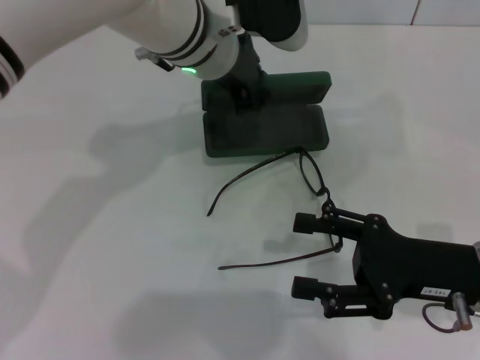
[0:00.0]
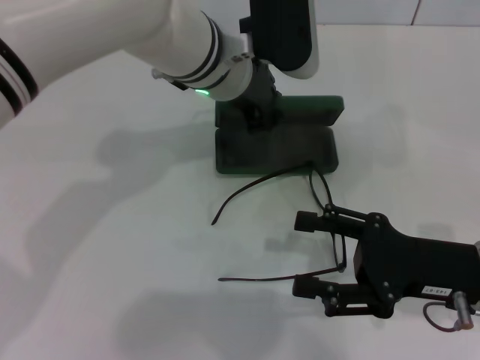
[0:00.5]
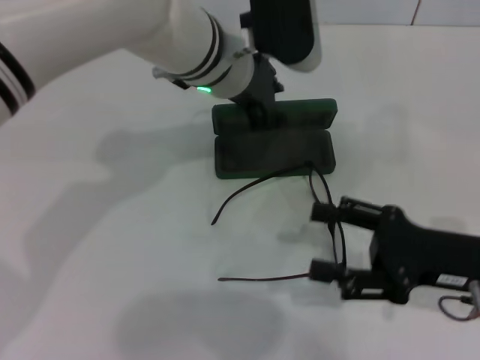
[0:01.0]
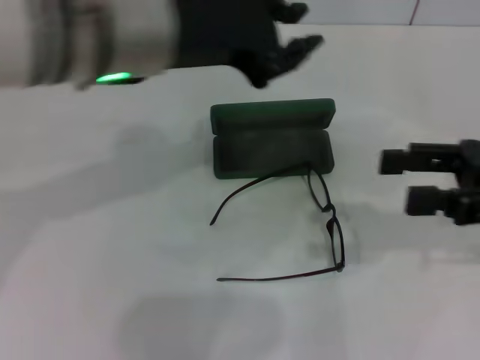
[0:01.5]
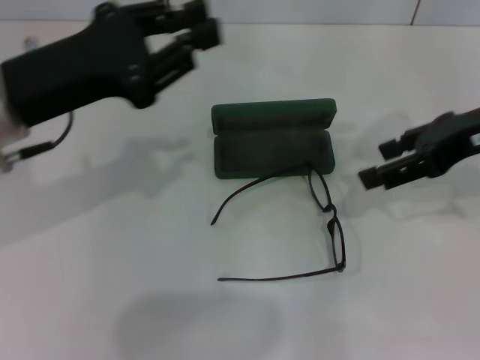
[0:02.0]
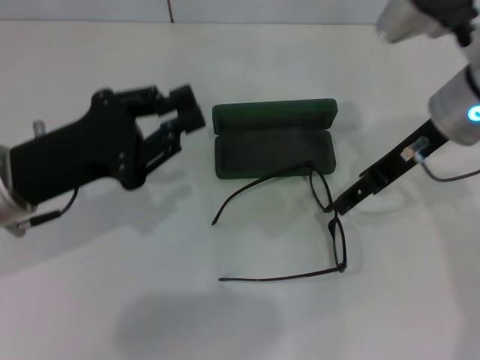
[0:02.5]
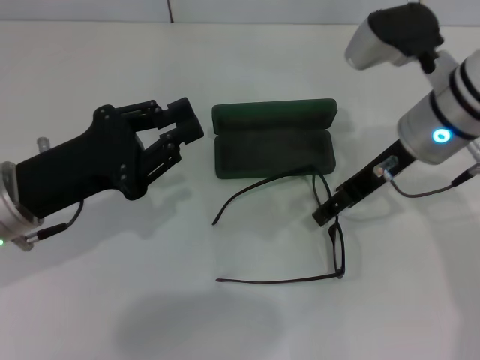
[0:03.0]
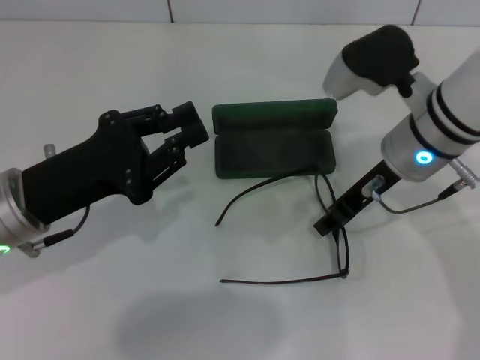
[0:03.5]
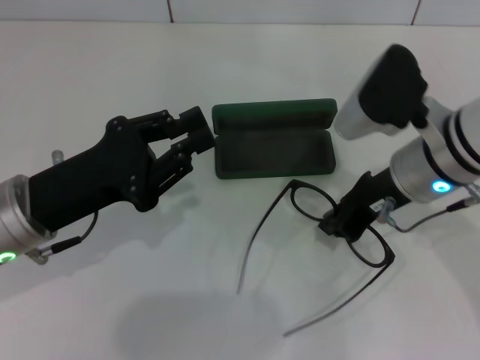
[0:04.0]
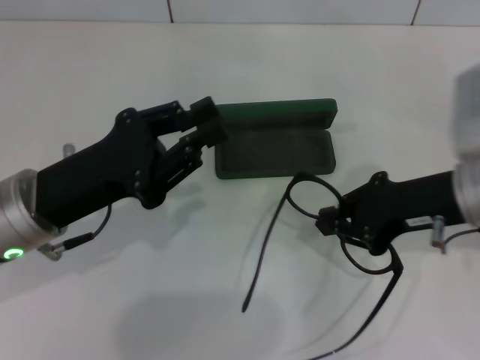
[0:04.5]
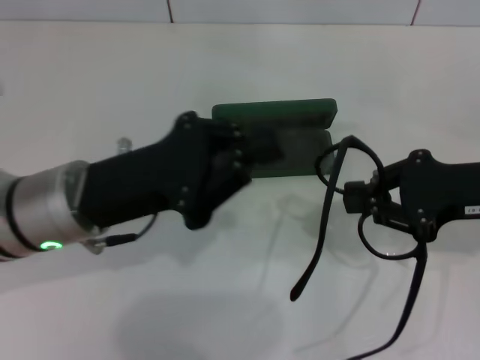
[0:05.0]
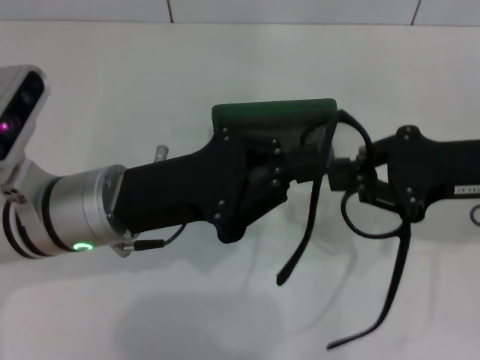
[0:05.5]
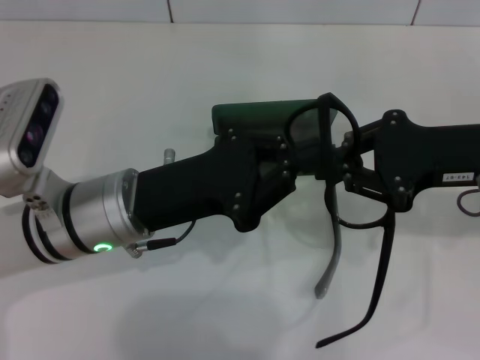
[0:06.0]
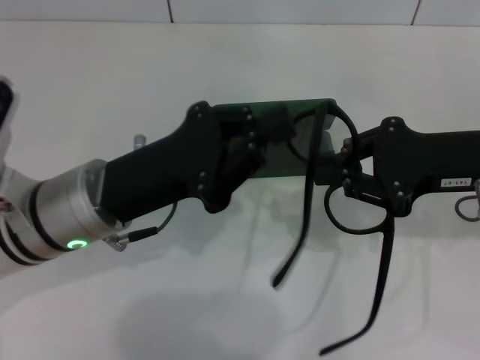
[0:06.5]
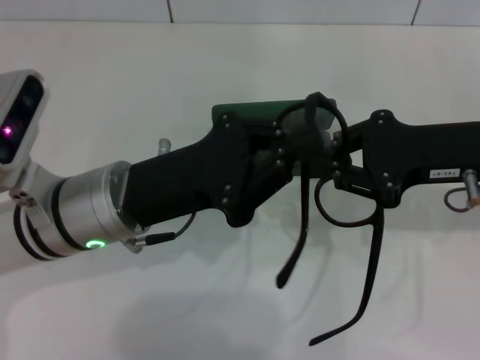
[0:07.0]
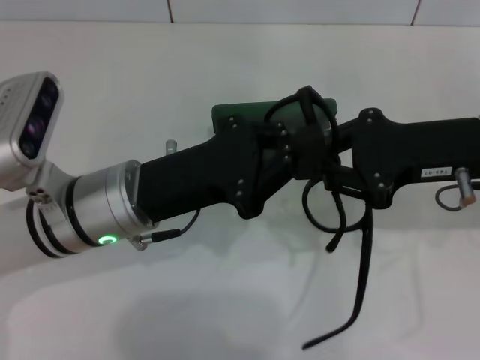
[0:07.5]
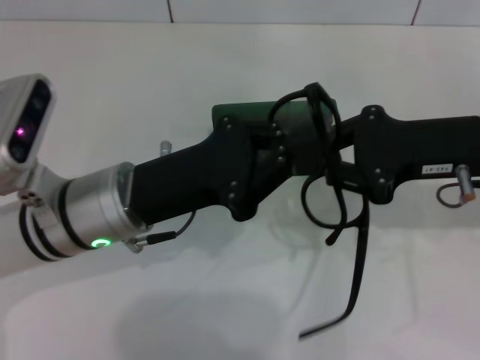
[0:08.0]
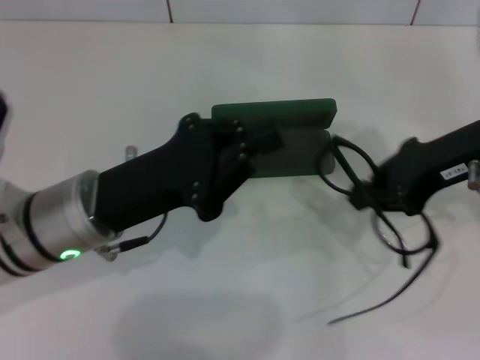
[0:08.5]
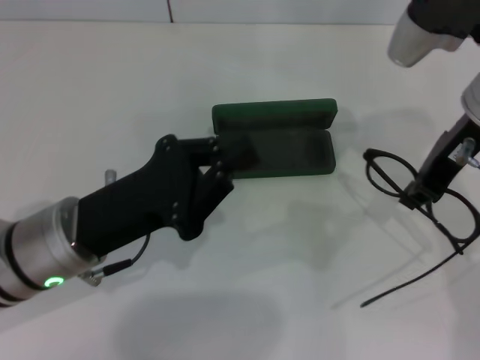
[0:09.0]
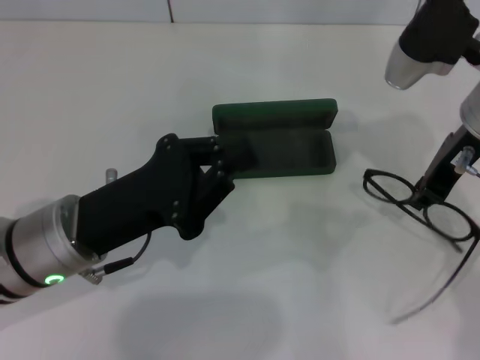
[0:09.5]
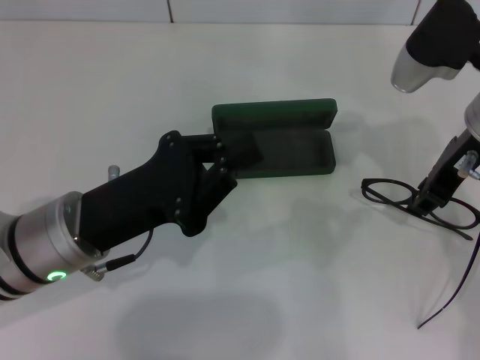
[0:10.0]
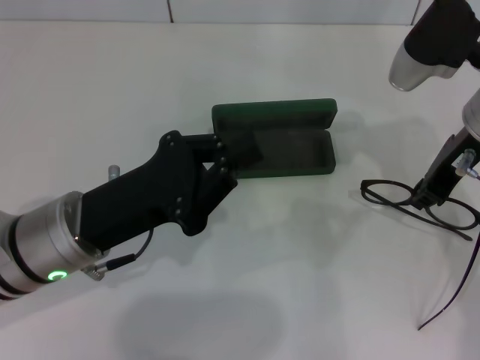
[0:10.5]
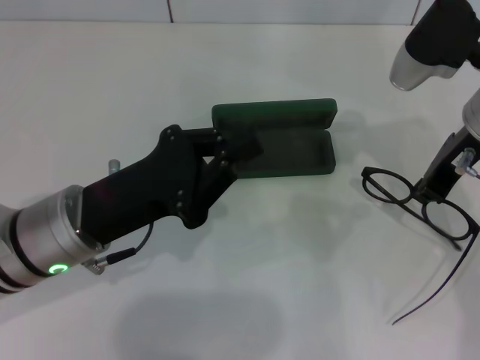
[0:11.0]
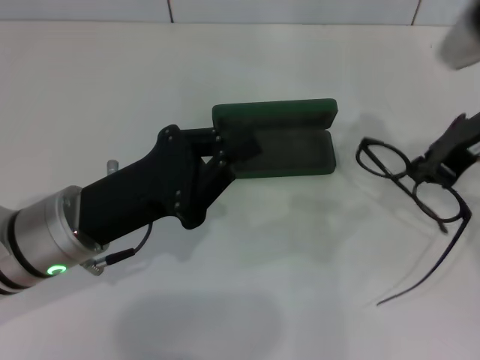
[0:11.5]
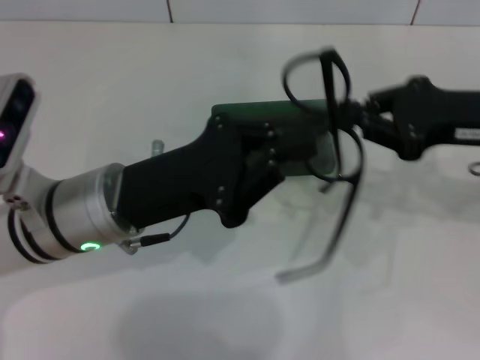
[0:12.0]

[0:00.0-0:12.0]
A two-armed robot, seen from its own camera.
Step, 0:00.0 to 0:01.0: Place the glasses case in the center of the table with your left hand.
Step, 0:01.5 to 0:03.5: Grab the eyeglass frame with your right hand.
0:00.0 to 0:02.0: The left gripper shifts about 20 cm to the left and backward. The right gripper is displaced upward and forward by approximately 15 cm.
0:02.0 to 0:04.0: The left gripper shifts approximately 10 cm downward; the right gripper travels to the left and downward by some 10 cm, and closes its fingers.
0:04.0 to 0:06.0: Both grippers travel together to the right, about 10 cm.
0:06.0 to 0:08.0: The grippers stay close to where they were, moving slightly.
0:08.0 to 0:10.0: The right gripper shifts roughly 5 cm forward.
0:10.0 to 0:12.0: The right gripper is displaced to the right by some 5 cm, and closes.

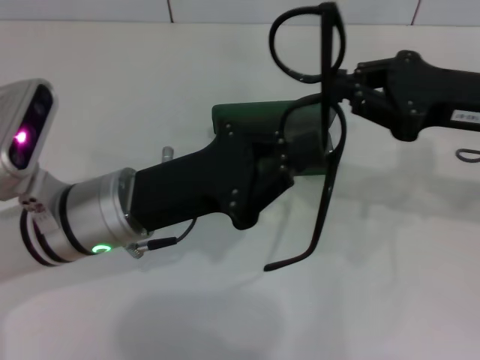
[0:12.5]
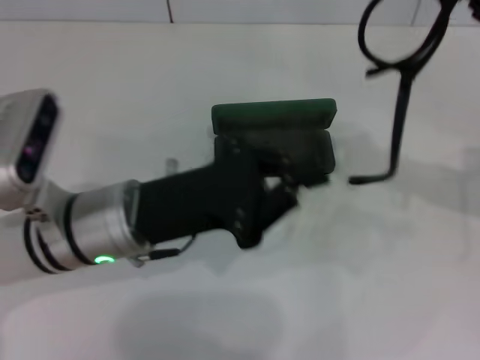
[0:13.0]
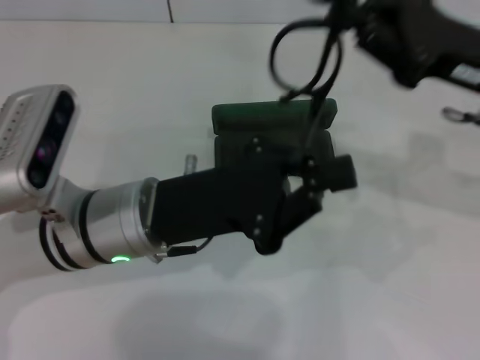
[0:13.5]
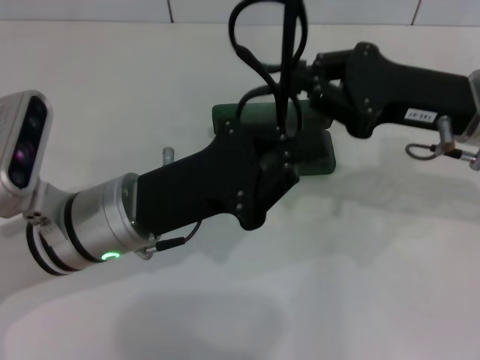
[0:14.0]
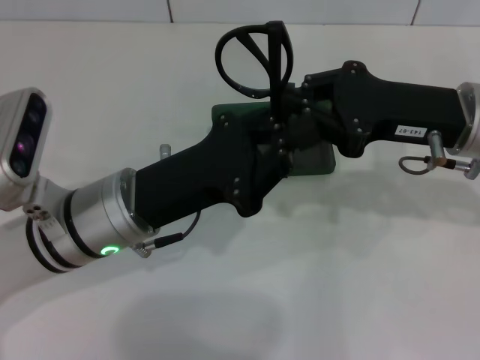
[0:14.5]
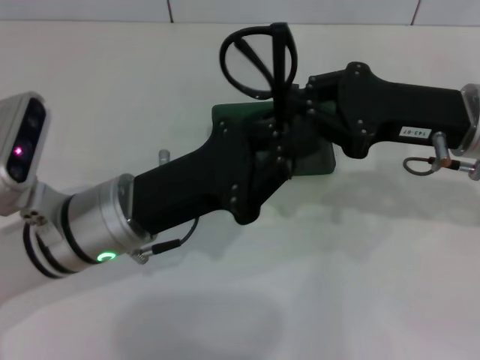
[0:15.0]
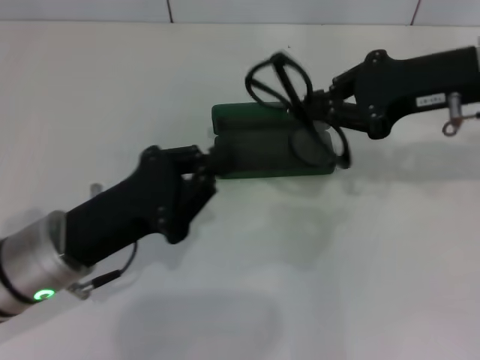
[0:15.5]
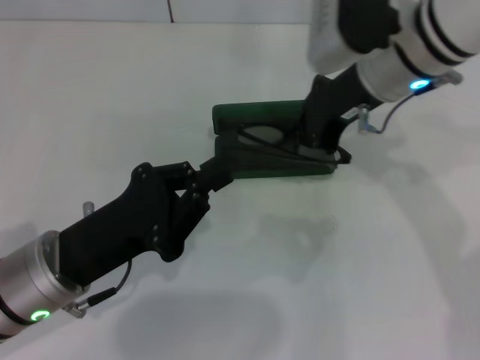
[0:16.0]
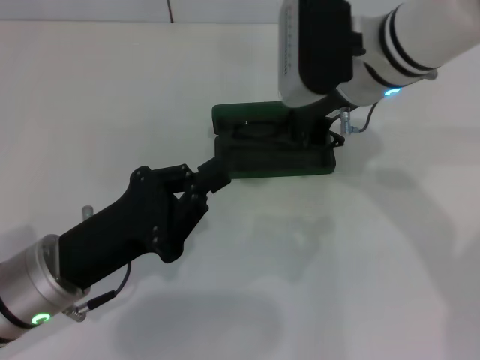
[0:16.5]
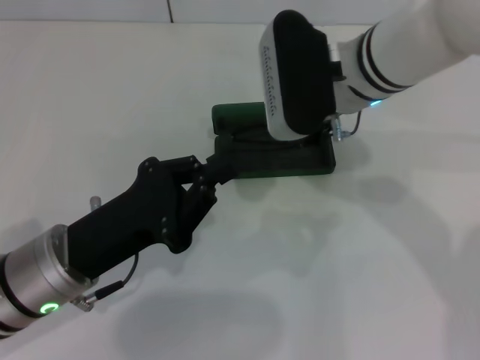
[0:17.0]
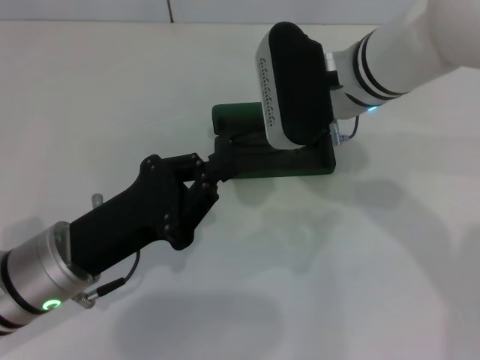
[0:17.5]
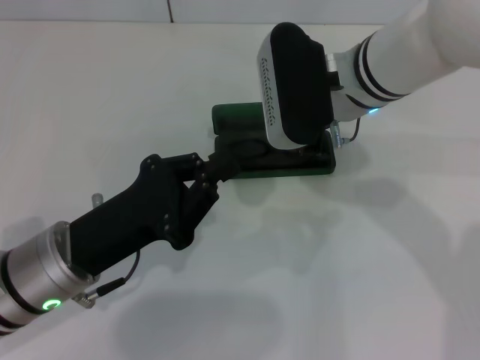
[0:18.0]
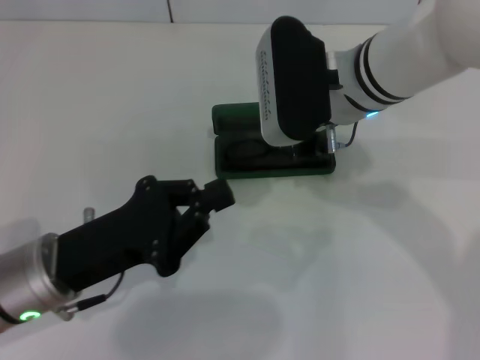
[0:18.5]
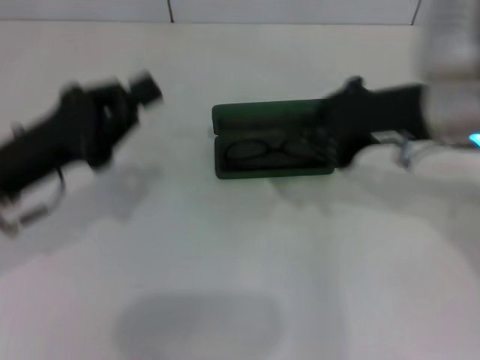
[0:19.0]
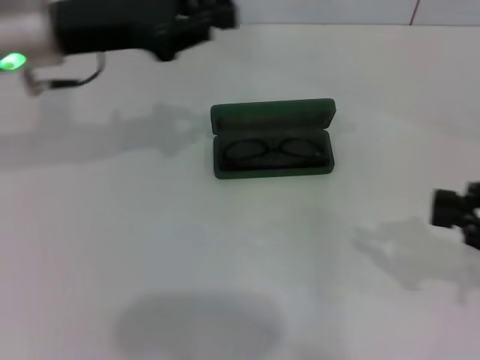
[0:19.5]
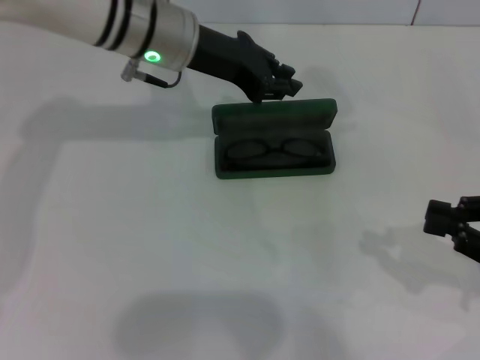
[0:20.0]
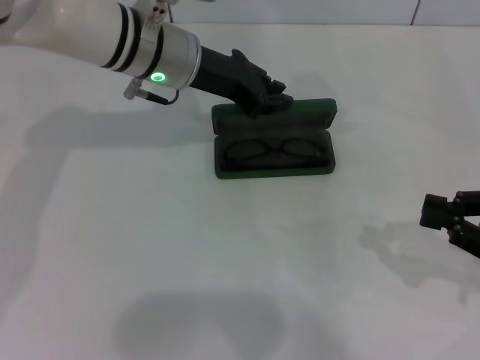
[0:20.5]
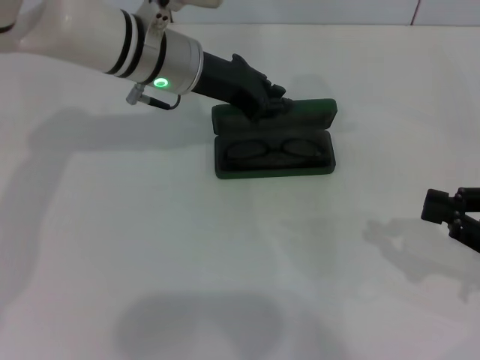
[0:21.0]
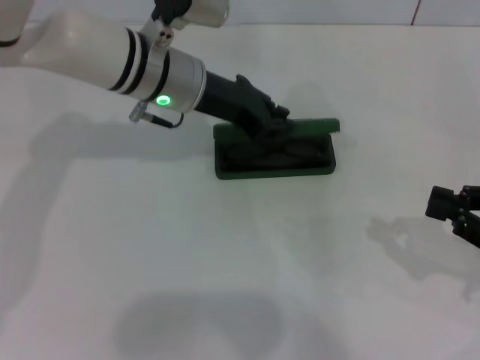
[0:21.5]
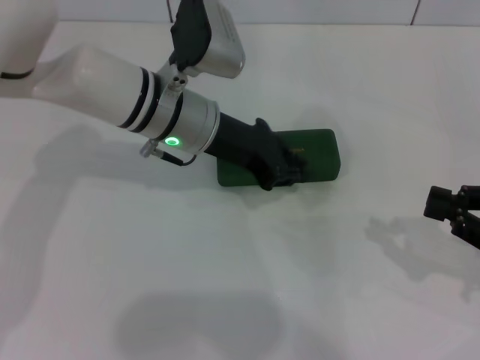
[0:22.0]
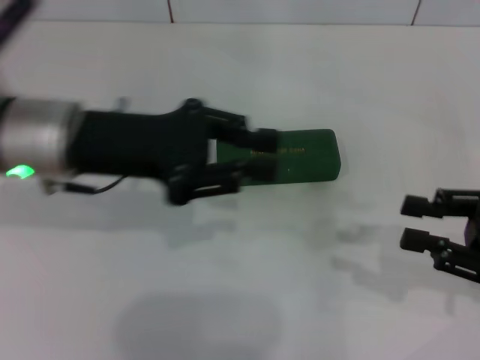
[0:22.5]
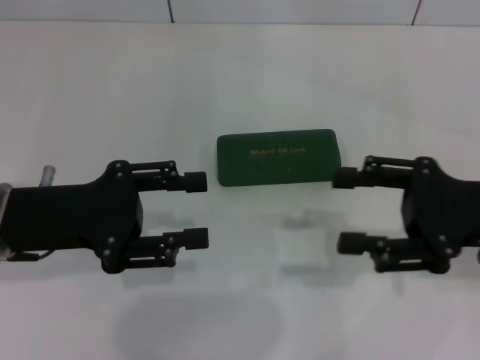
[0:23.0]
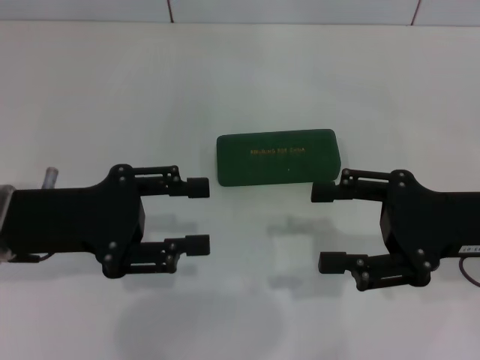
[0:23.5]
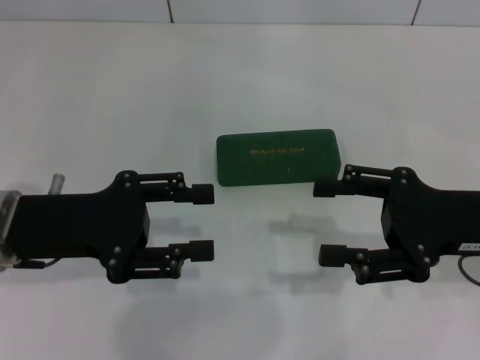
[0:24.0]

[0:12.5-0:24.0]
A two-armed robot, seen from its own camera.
Step, 0:12.5 to 0:14.5: Fold the frame with your left hand.
Step, 0:15.0 to 0:18.0: Put the glasses into the case with your right hand.
Step, 0:18.5 to 0:21.5: Close the glasses case with your left hand.
0:14.5 to 0:16.5: The left gripper travels to the left and backward by roughly 10 cm; the right gripper is displaced to the left and forward by some 10 cm.
0:16.5 to 0:18.5: The grippers stay close to where they were, moving slightly.
0:18.5 to 0:20.0: The right gripper is displaced to the right and backward by approximately 30 cm. The left gripper shifts approximately 25 cm forward, upward and to the right.
0:20.0 to 0:22.0: The left gripper shifts some 5 cm downward.
0:22.0 to 0:24.0: The right gripper shifts roughly 10 cm to the left, and opens its fingers, while the left gripper travels to the left and backward by some 20 cm, and opens up.
